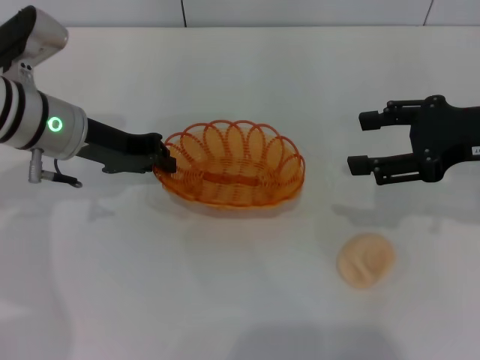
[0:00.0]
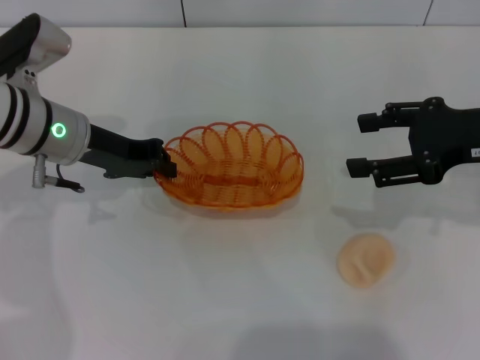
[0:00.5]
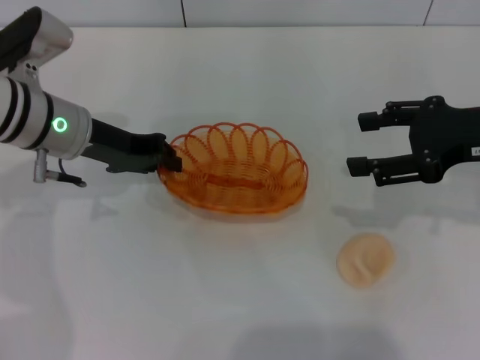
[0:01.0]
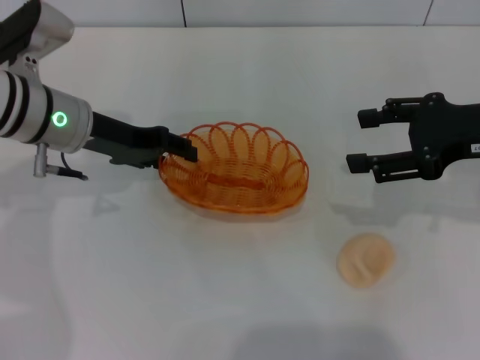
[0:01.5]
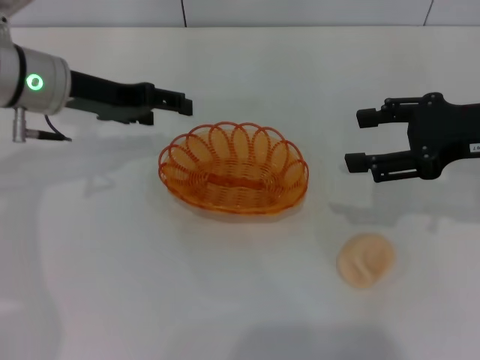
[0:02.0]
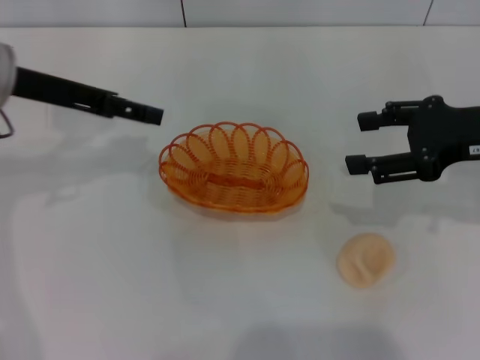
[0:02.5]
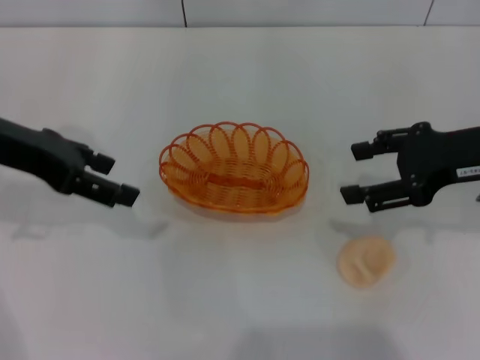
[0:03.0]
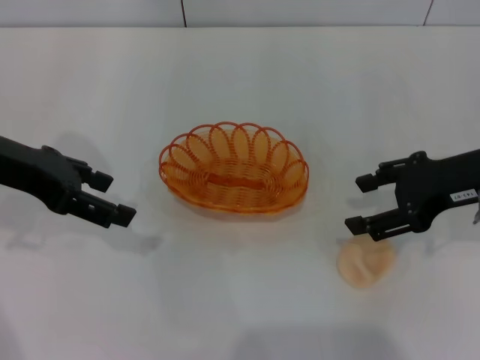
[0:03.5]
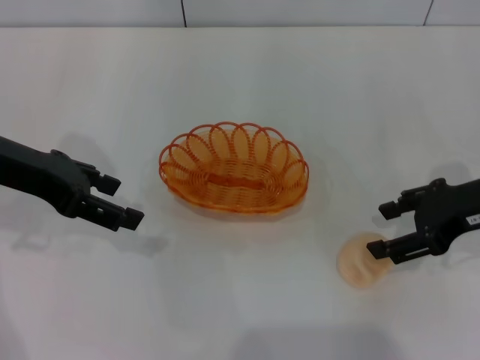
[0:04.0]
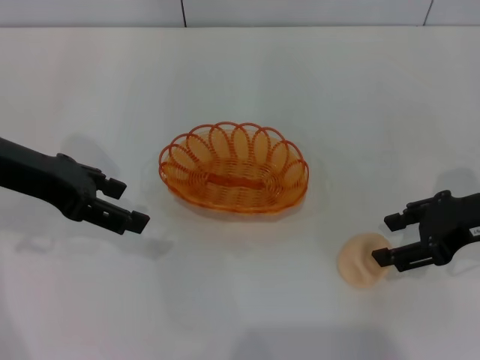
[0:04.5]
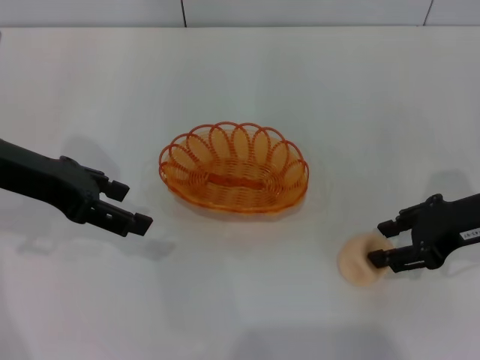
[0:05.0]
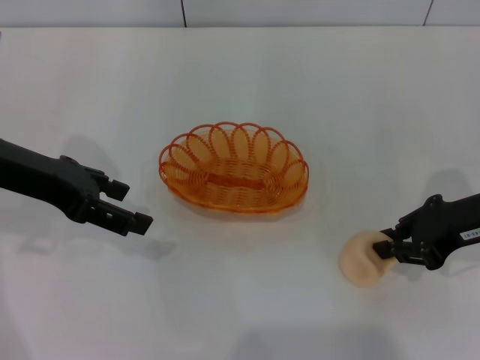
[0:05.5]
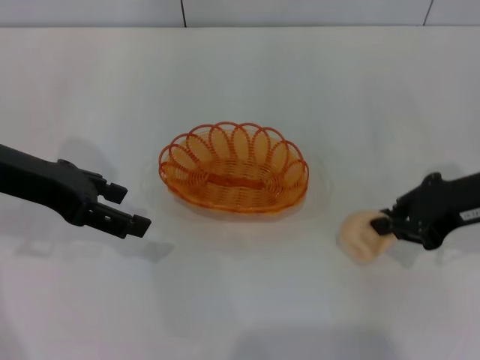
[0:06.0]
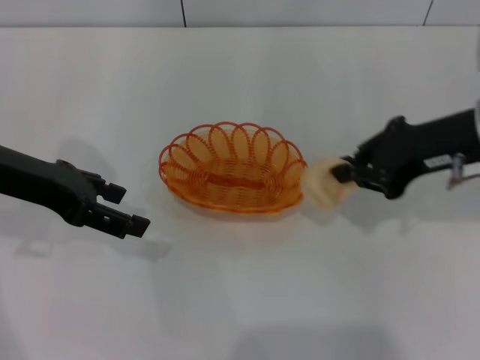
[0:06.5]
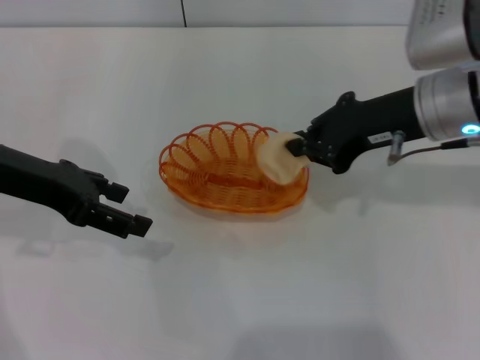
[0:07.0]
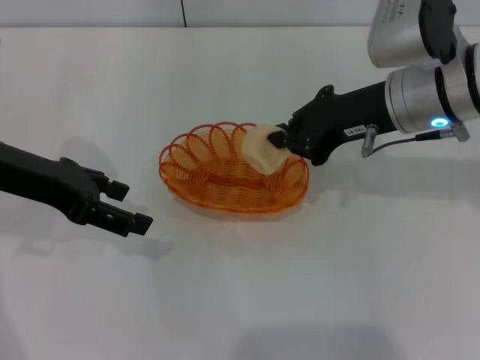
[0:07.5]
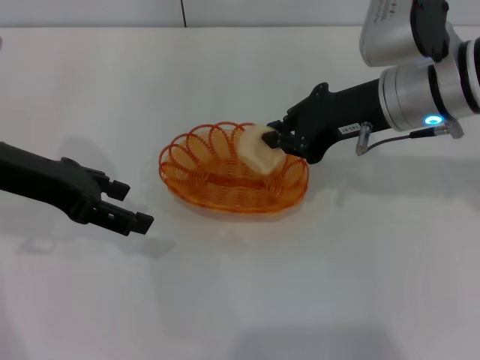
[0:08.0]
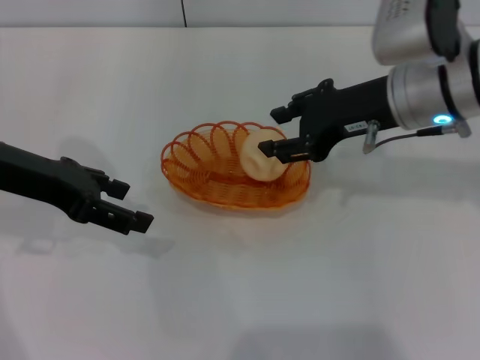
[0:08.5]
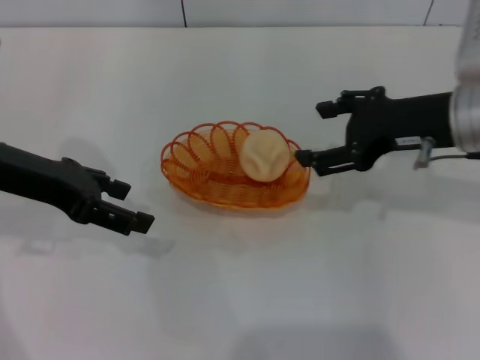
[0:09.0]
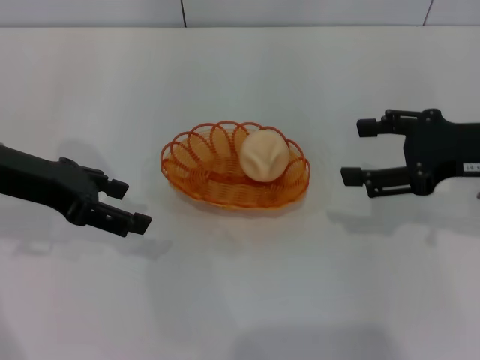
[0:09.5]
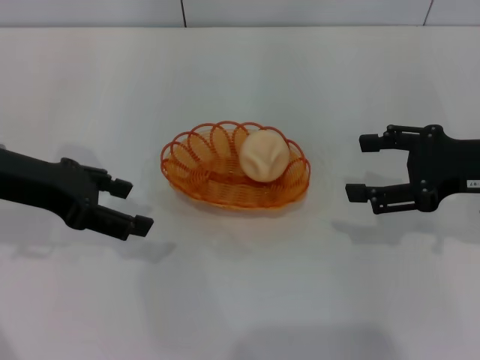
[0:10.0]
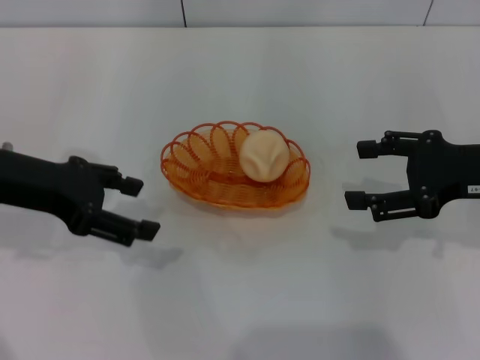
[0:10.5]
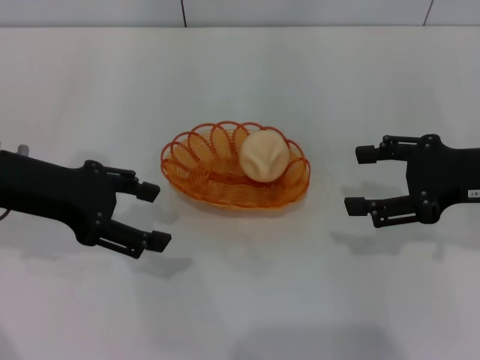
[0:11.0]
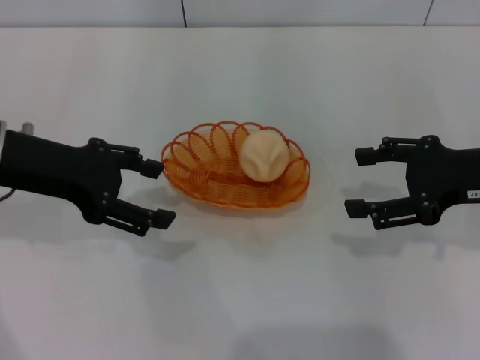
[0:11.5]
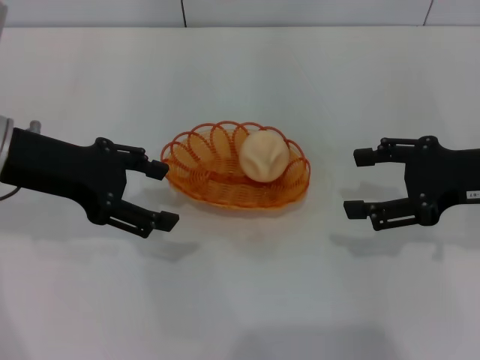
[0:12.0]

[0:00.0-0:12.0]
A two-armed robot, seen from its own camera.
Step, 0:00.0 to 0:02.0: Place the basket in the center of view with the left gripper.
Step, 0:02.5 to 0:06.0: Pick up the egg yolk pastry with the right gripper.
Step, 0:06.5 to 0:09.0: Place the egg yolk pastry into the basket with the right gripper.
0:00.0 to 0:02.0: The left gripper opens.
0:02.0 to 0:04.0: The left gripper shifts some 10 cm backward.
0:04.0 to 0:06.0: The right gripper closes.
0:06.0 to 0:08.0: The right gripper moves to the left and forward, roughly 10 cm.
0:08.0 to 0:10.0: The right gripper travels to the right and backward by roughly 15 cm, and opens up.
0:10.0 to 0:12.0: There are only small adjustments of the grippers.

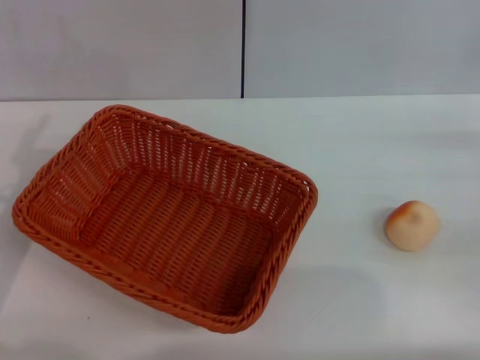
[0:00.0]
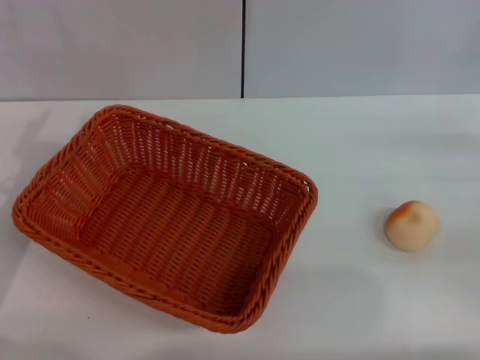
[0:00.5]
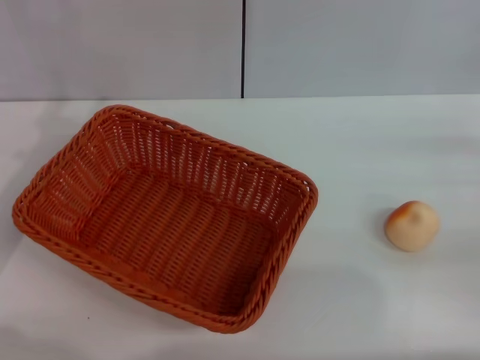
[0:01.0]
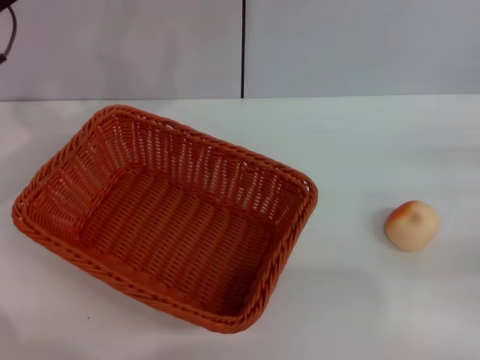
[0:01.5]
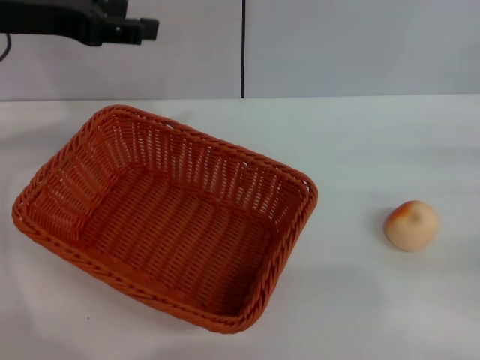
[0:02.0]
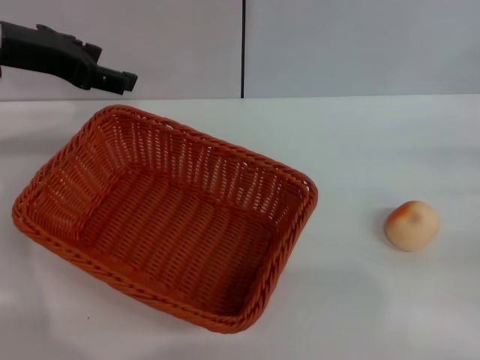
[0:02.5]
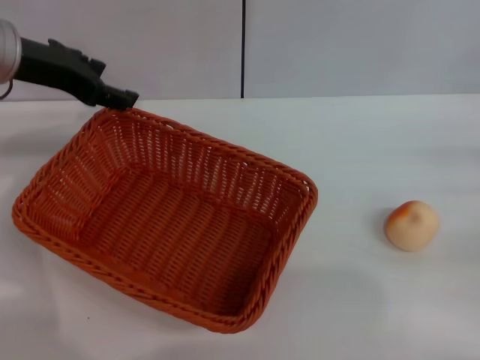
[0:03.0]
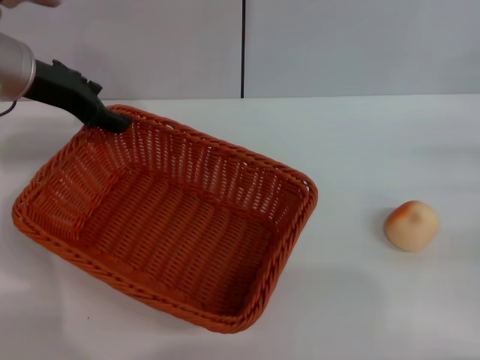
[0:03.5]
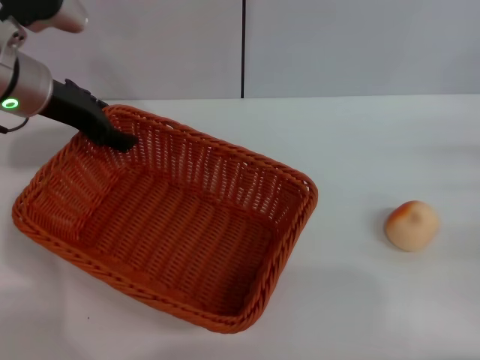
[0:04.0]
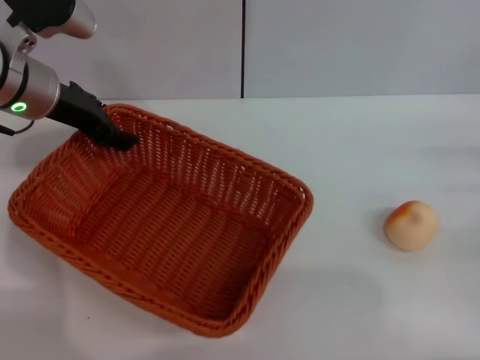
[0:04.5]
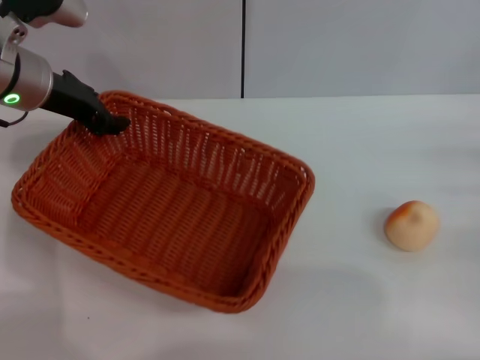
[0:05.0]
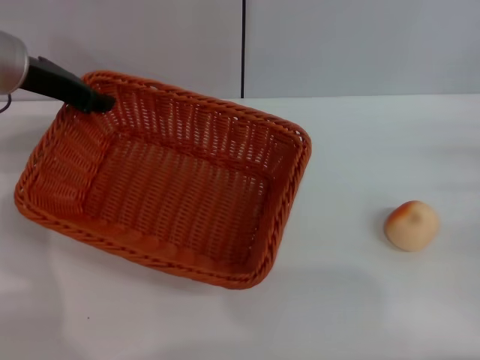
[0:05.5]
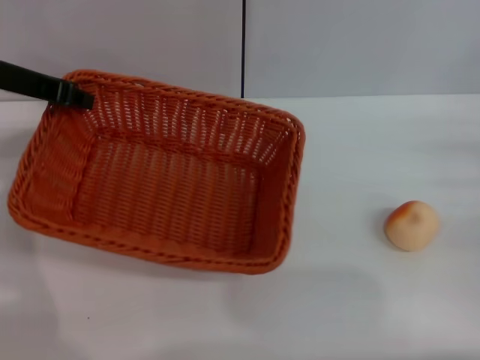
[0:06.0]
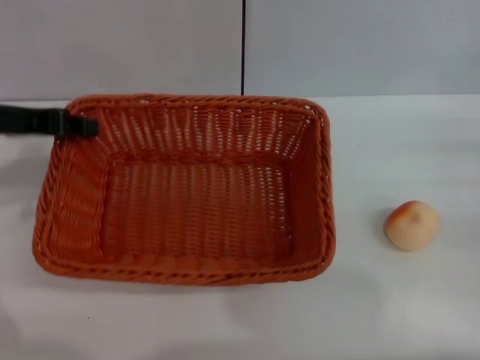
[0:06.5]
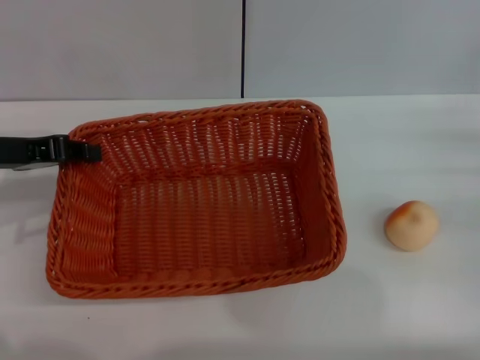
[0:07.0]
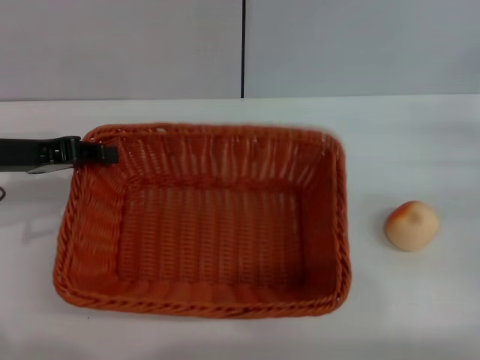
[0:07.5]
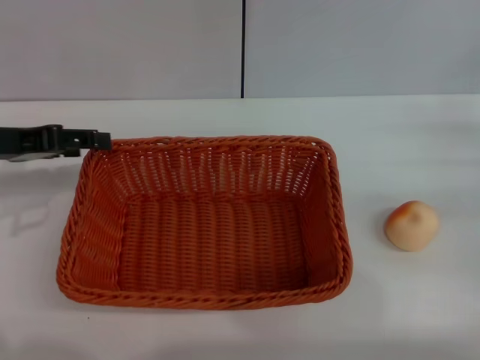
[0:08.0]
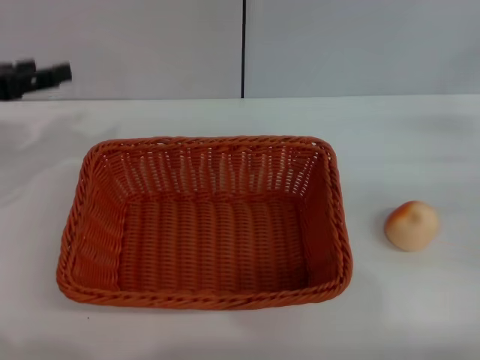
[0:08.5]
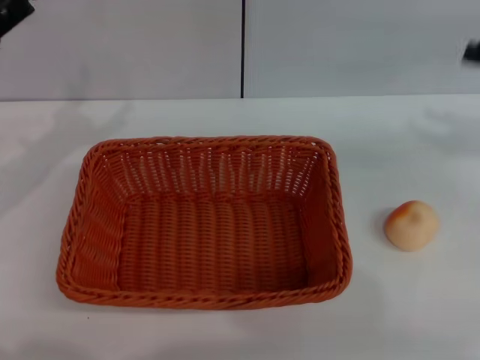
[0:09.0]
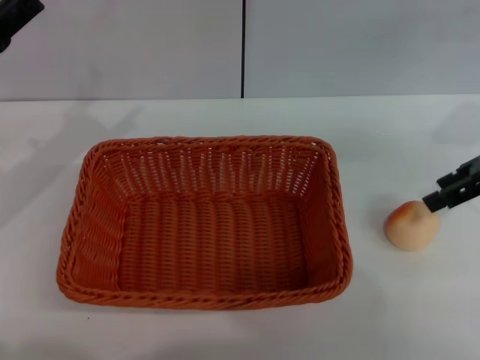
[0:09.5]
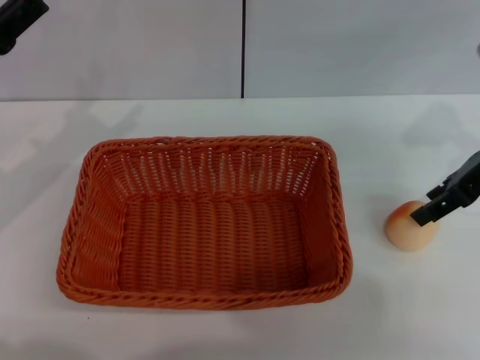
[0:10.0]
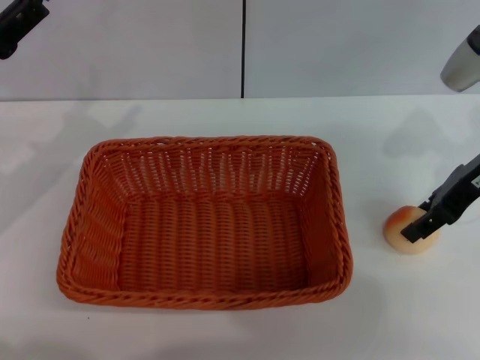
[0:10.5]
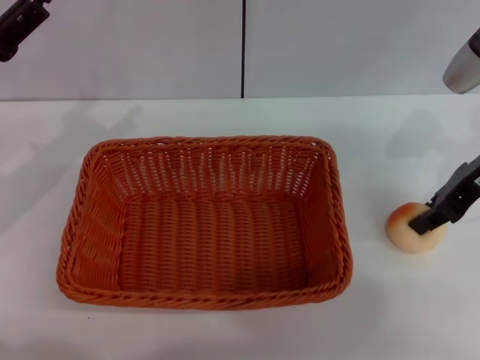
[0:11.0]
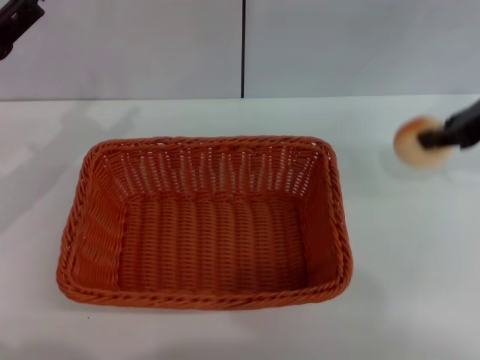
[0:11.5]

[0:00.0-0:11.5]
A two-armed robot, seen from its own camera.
Step, 0:00.0 to 0:08.0: Move the basket to the center of view with the left gripper.
Step, 0:08.5 to 0:11.0: Pick up the egg yolk pastry with the right gripper.
0:00.0 to 0:02.0: The left gripper travels upward and forward by some 20 cm.
0:02.0 to 0:04.0: The left gripper goes about 10 cm downward.
0:04.0 to 0:06.0: The left gripper moves about 5 cm, and closes its fingers.
0:06.0 to 0:07.5: The left gripper travels backward and downward by about 10 cm.
0:07.5 to 0:09.5: The left gripper opens. Meanwhile the right gripper goes roughly 15 cm upward and to the left.
0:09.5 to 0:11.5: The right gripper closes.

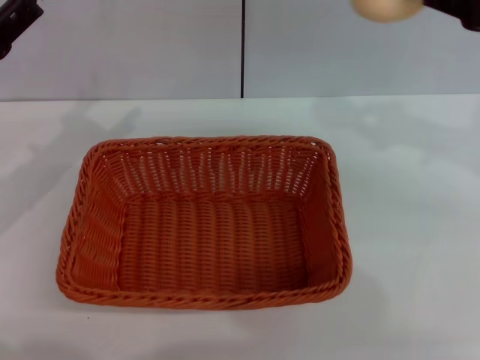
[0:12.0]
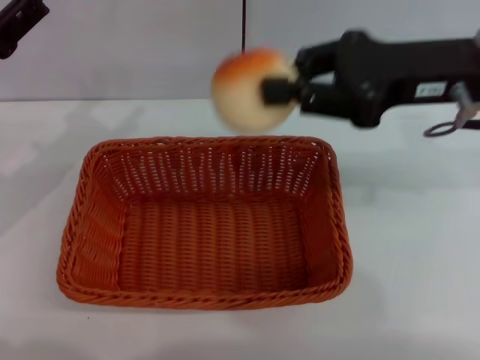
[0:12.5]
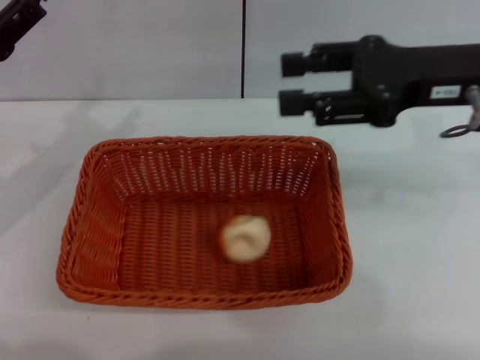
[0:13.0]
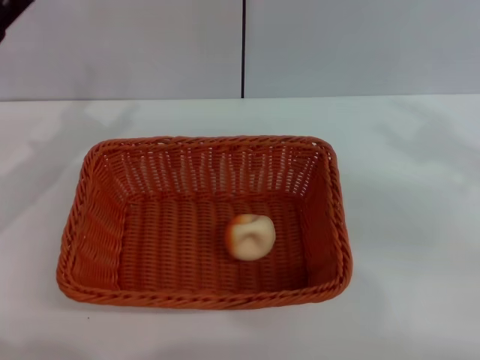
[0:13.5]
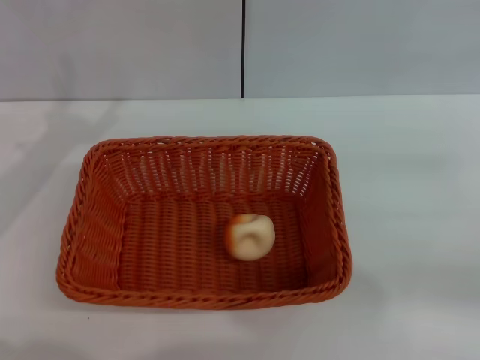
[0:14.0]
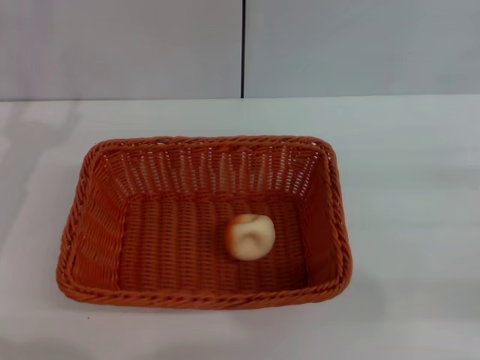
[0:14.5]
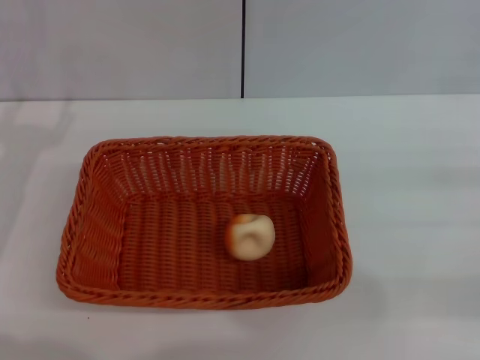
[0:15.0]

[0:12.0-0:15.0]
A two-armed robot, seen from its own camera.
Step, 0:12.0 to 0:13.0: Place the egg yolk pastry into the basket with the right gripper.
0:12.0 to 0:13.5: The right gripper travels downward by approximately 5 cm, travels to the left and back again, about 10 cm each way, and opens.
